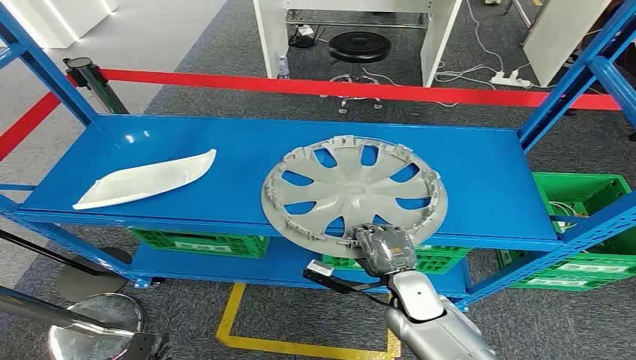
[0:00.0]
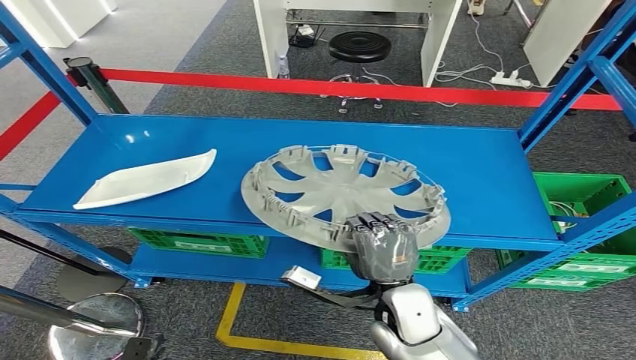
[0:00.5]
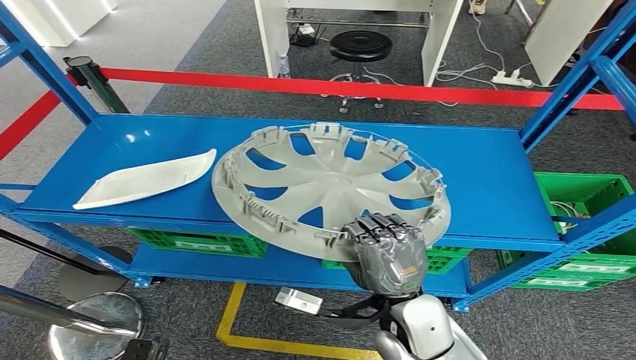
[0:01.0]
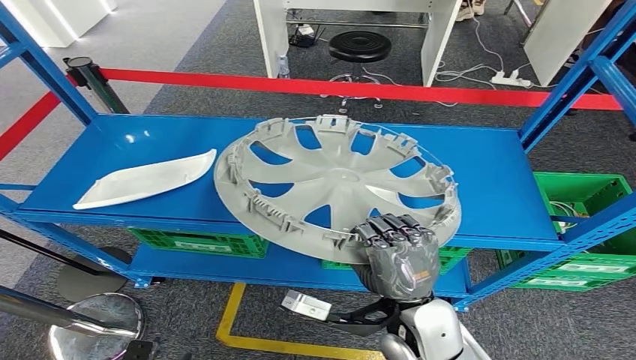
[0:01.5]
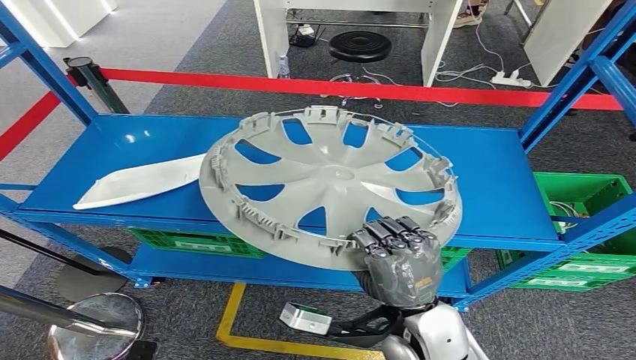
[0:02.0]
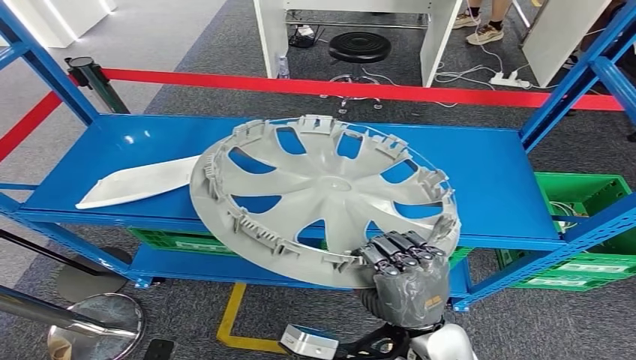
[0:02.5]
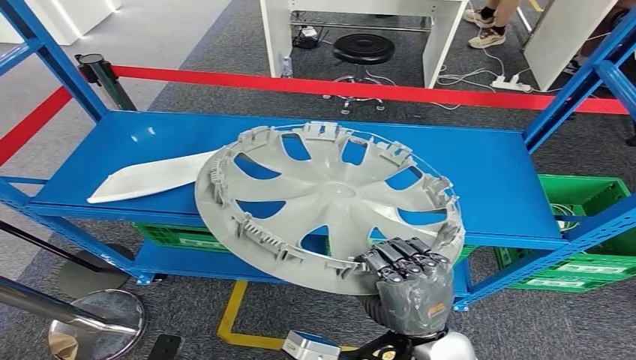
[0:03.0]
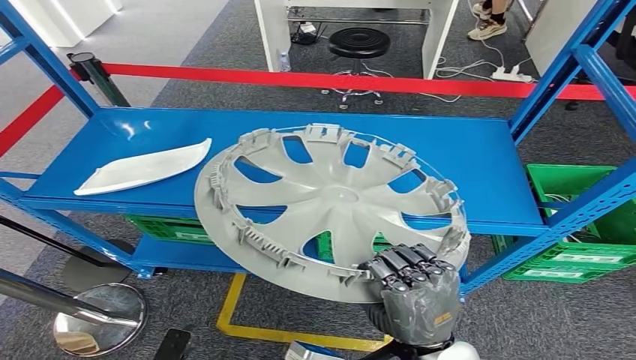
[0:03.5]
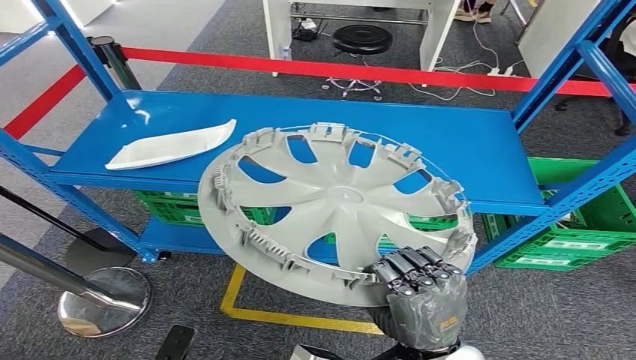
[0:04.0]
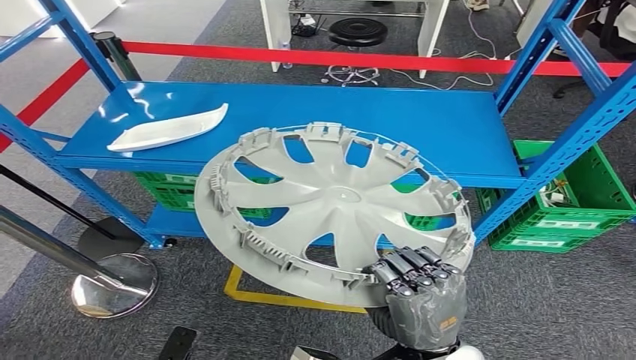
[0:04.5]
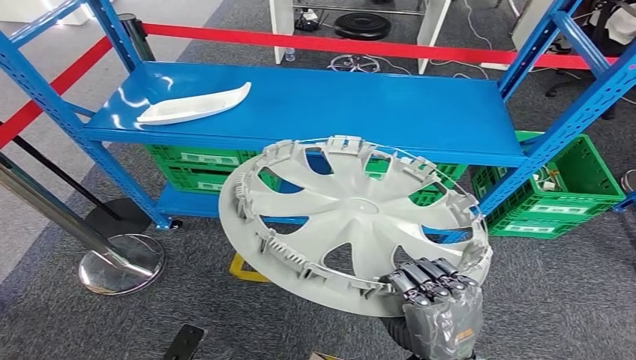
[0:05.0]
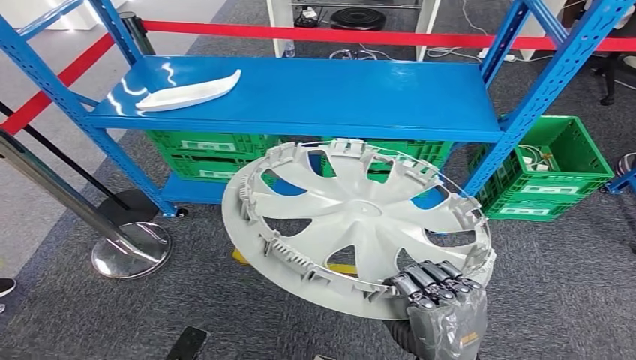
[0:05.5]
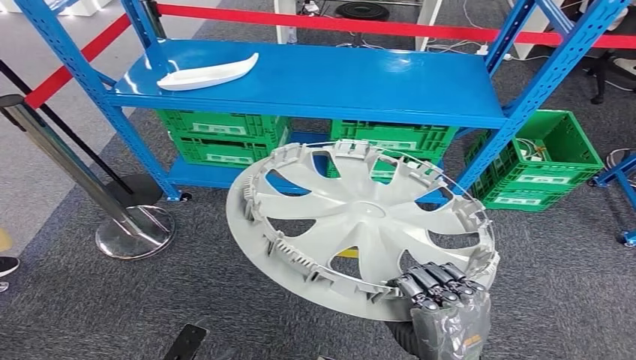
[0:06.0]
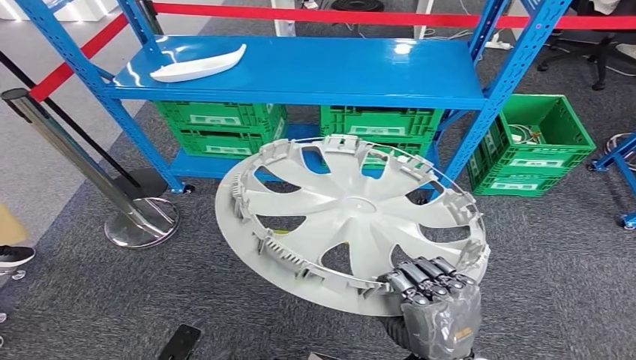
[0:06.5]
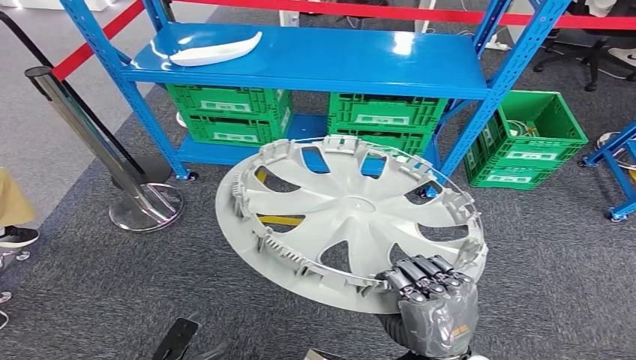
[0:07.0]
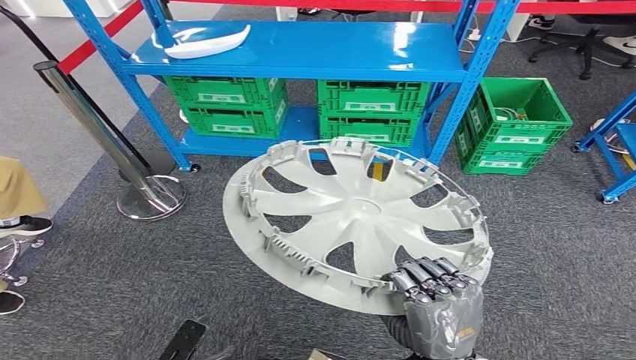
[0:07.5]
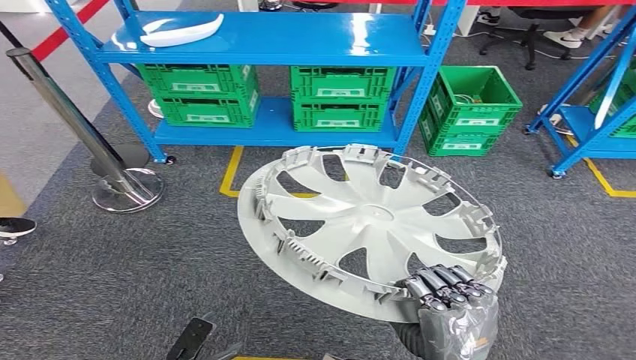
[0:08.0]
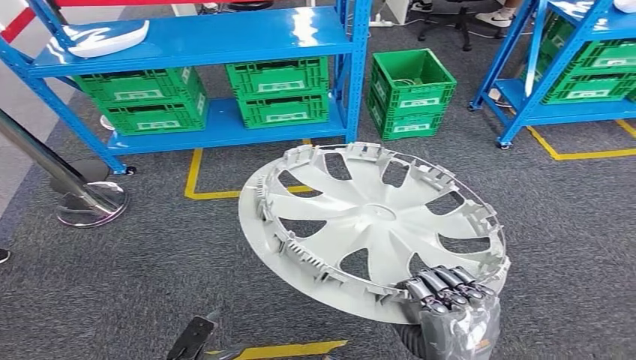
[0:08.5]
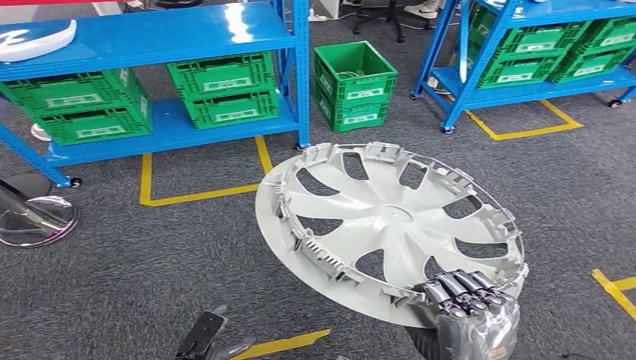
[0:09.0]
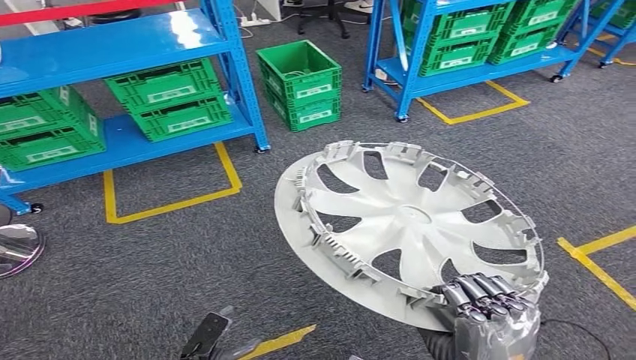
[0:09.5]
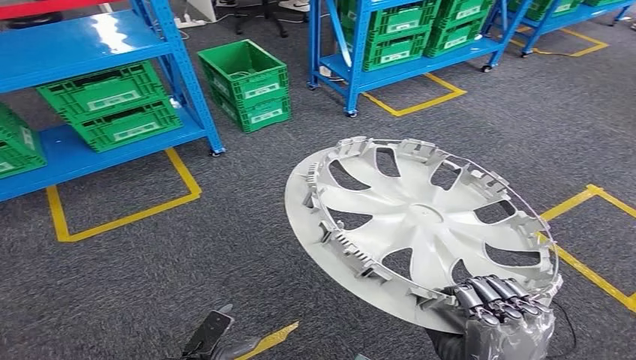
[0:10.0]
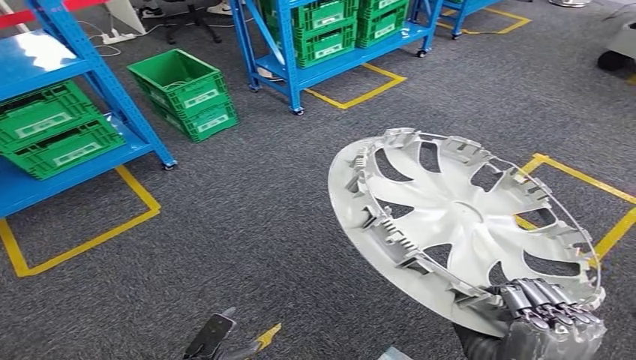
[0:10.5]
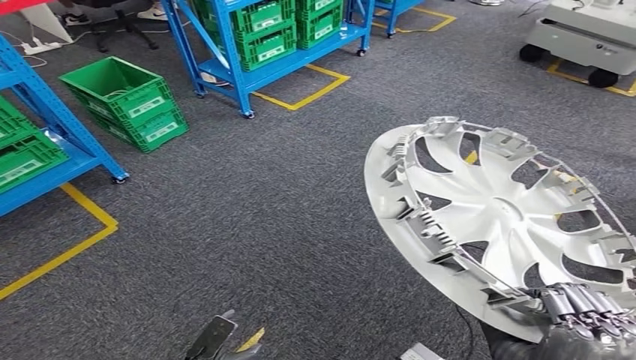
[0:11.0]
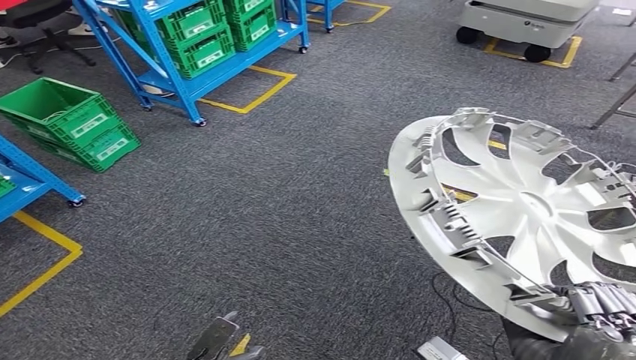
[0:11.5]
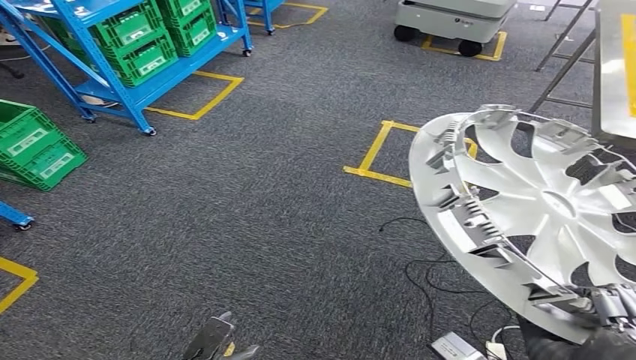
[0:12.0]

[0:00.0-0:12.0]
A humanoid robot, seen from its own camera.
Step, 0:00.0 to 0:02.5: Pick up the small component from the shelf.

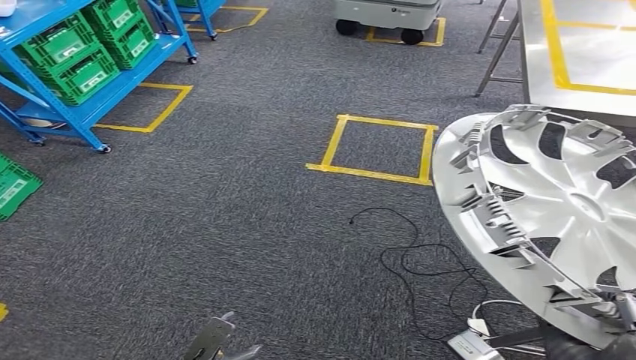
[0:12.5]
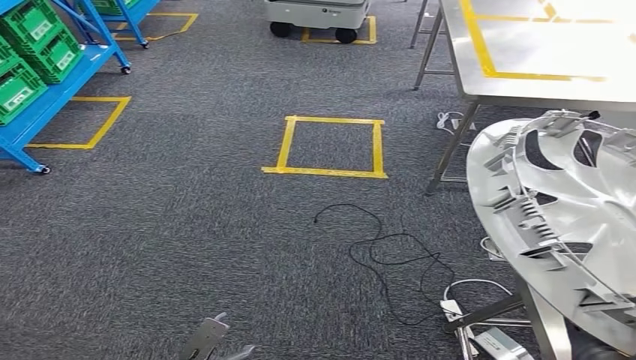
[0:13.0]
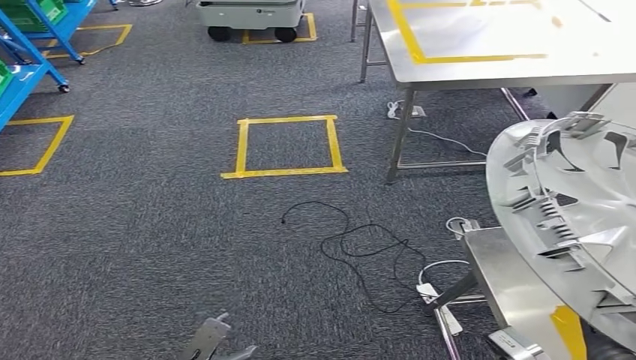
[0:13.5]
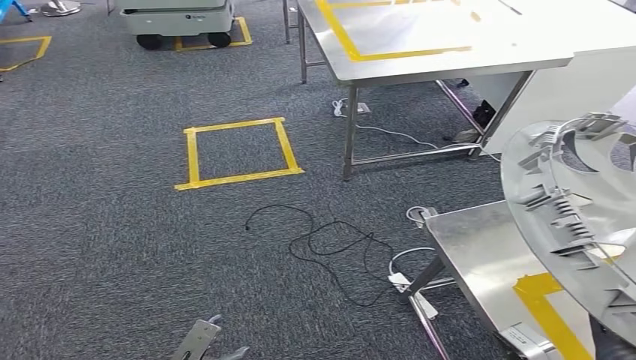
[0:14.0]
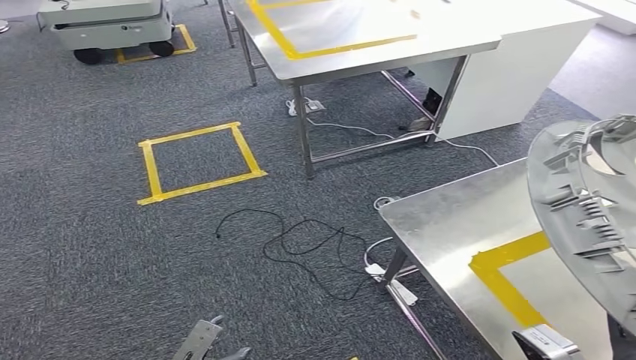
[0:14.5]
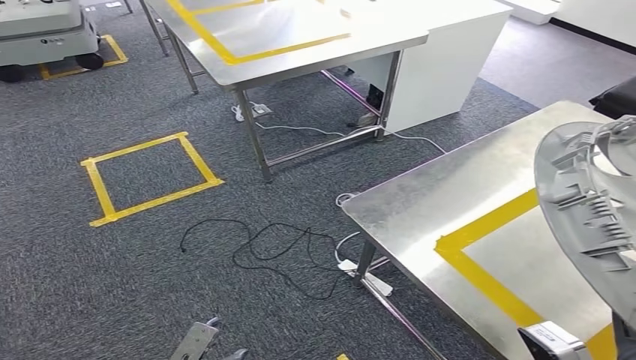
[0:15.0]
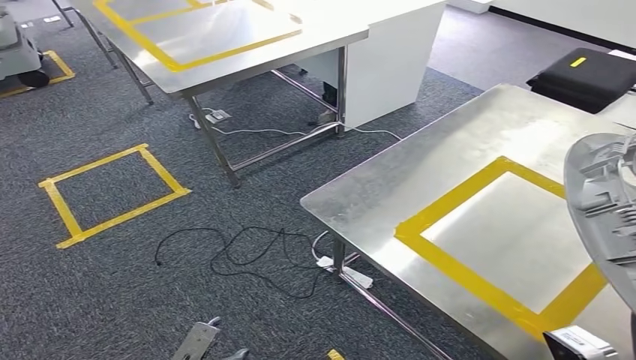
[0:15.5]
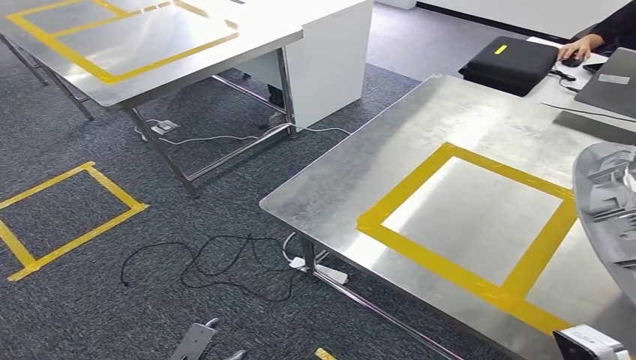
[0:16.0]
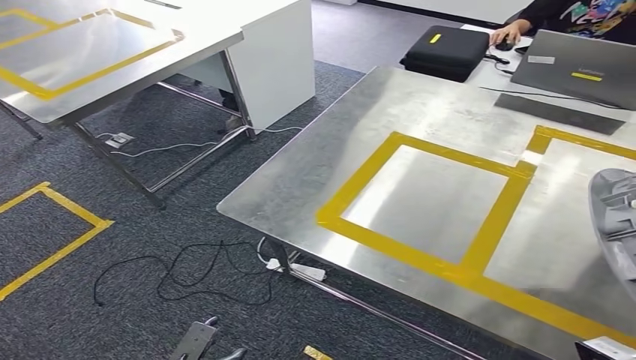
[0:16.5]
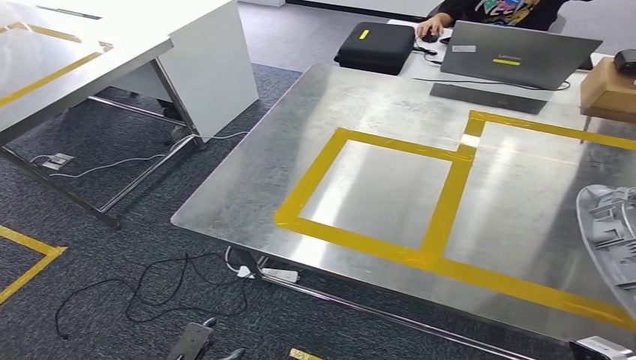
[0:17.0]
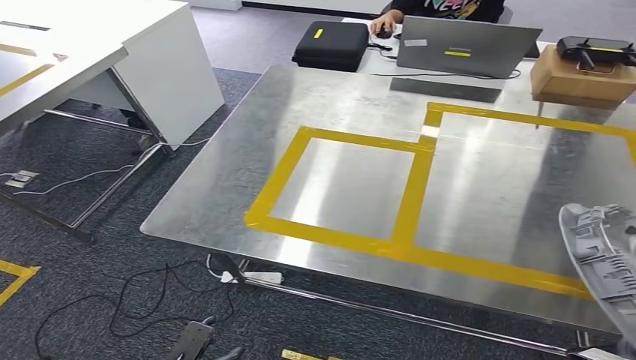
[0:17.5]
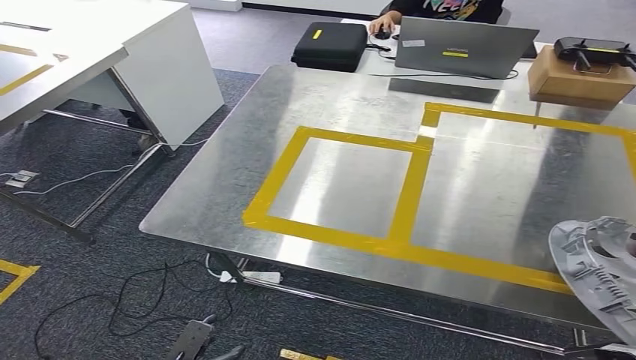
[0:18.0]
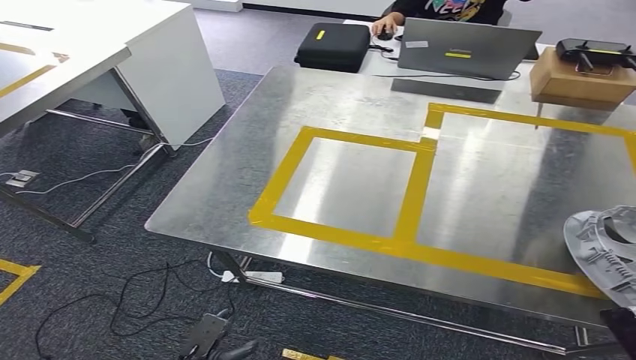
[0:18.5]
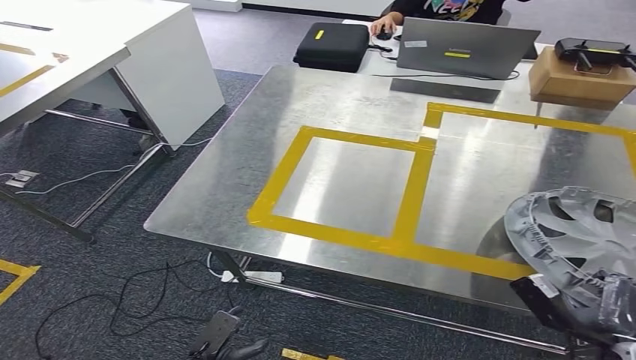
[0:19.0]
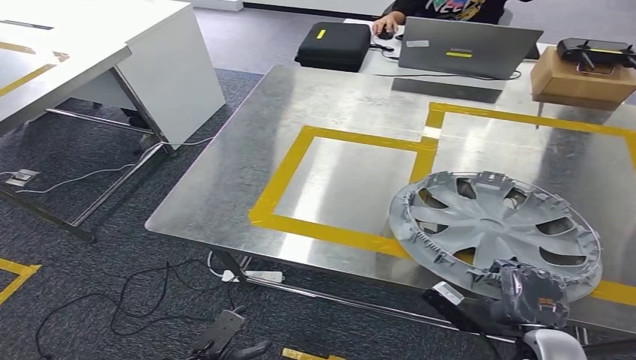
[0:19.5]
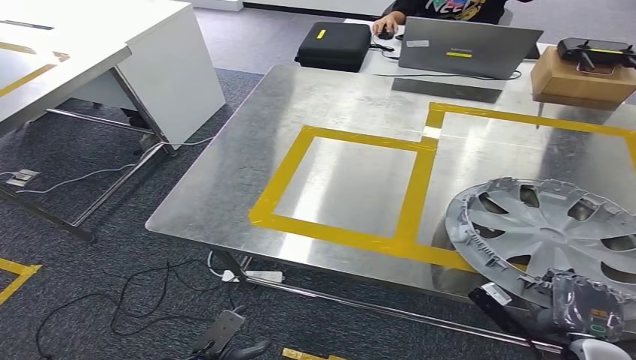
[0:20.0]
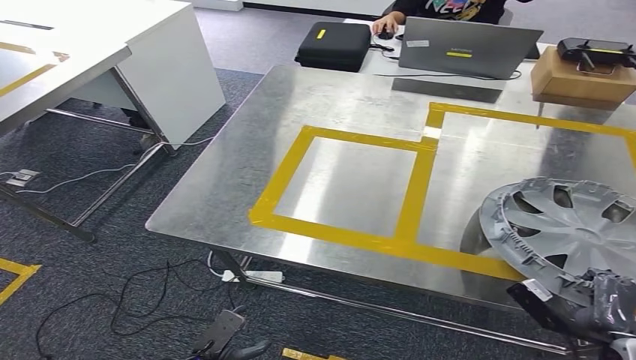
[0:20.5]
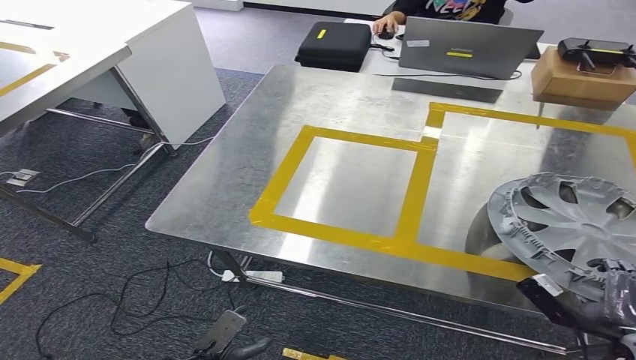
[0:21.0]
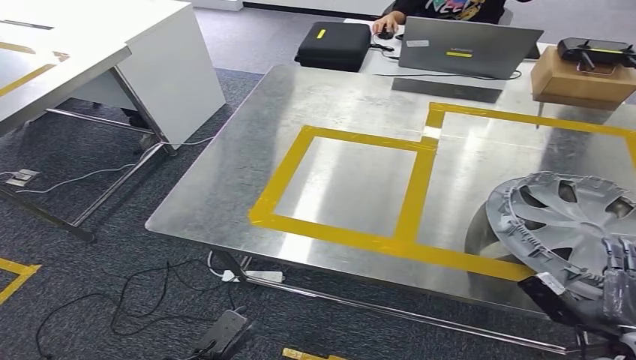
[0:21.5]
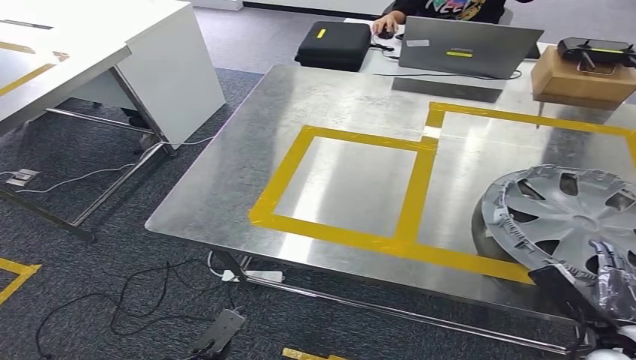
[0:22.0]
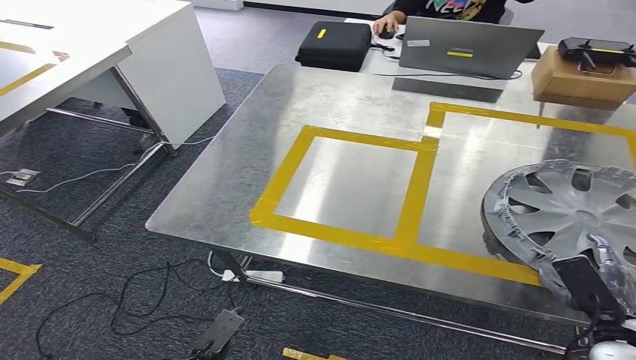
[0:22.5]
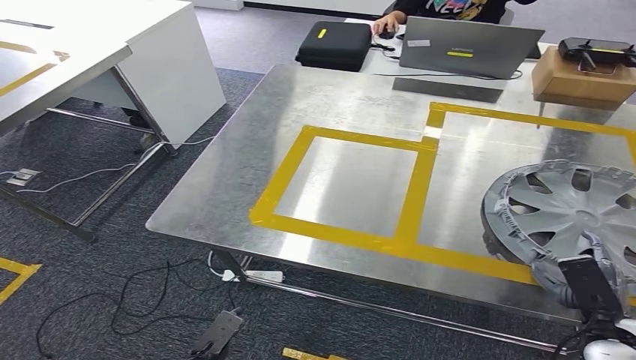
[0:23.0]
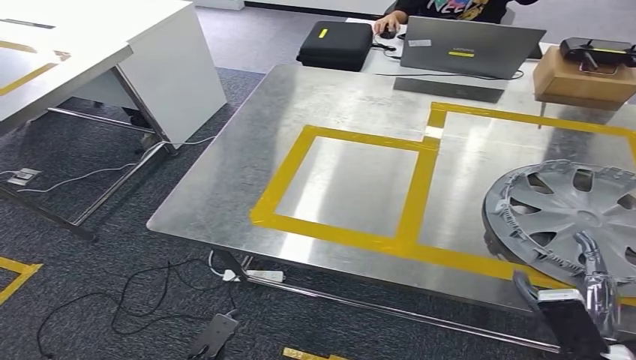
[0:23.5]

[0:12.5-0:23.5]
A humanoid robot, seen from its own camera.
Step, 0:12.5 to 0:17.0: Move the small component to the workbench.
0:18.0 to 0:20.0: The right hand travels forward by some 15 cm.
0:20.0 to 0:21.5: The right hand moves to the right, approximately 5 cm.
0:21.5 to 0:23.5: The right hand travels to the left by approximately 5 cm.
